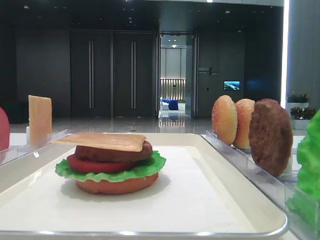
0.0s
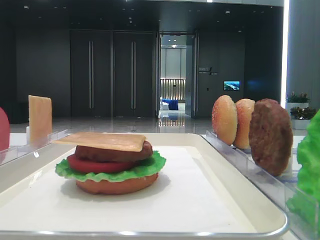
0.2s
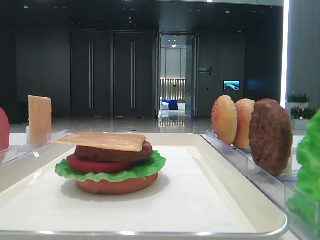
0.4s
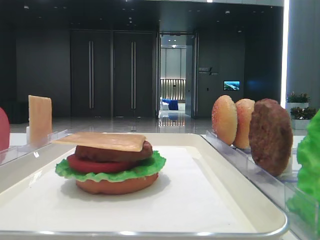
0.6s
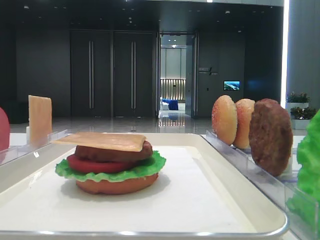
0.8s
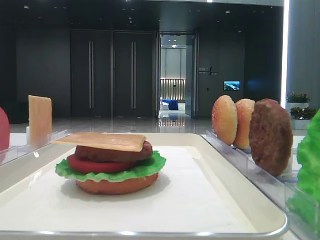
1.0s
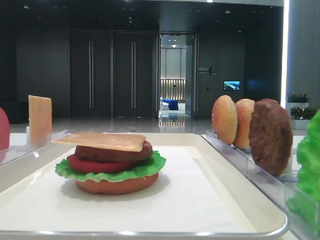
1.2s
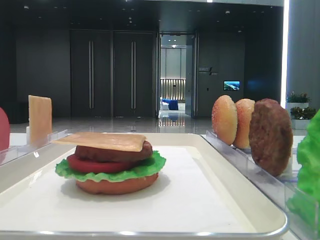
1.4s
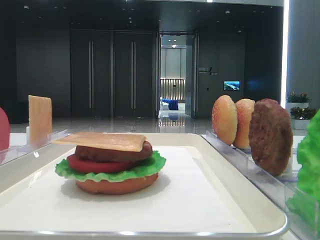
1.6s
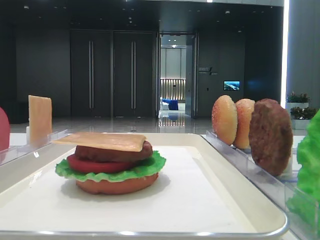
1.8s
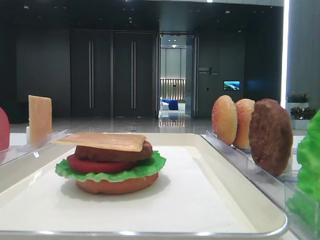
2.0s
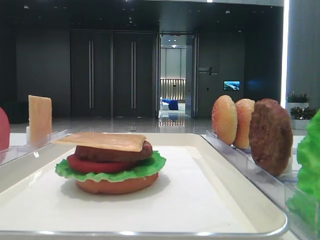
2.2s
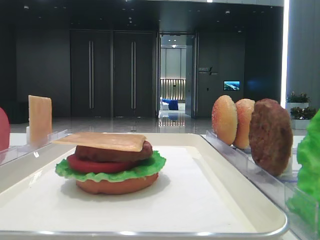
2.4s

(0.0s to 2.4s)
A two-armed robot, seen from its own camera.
0.0s - 2.4s: Both grippers stay put.

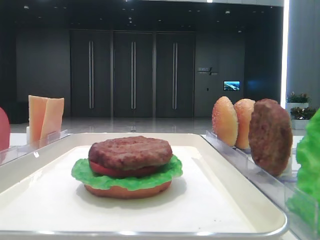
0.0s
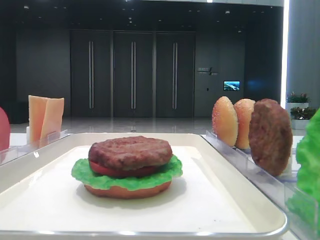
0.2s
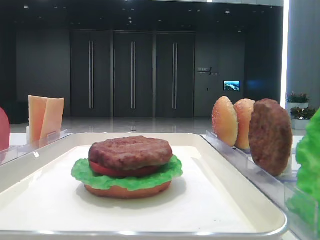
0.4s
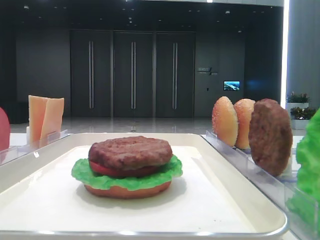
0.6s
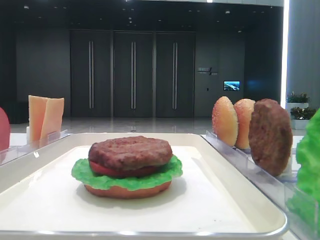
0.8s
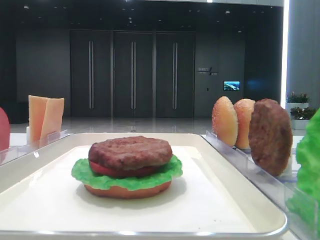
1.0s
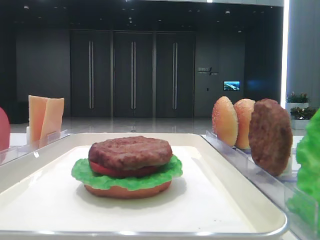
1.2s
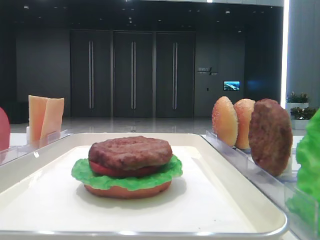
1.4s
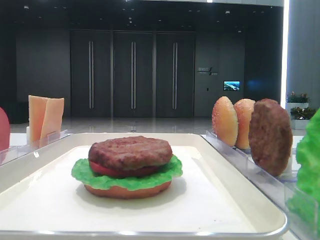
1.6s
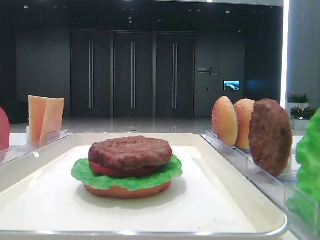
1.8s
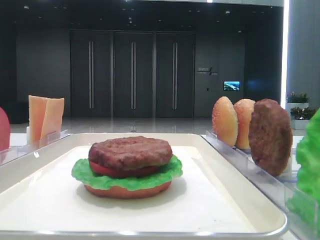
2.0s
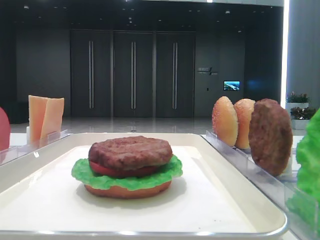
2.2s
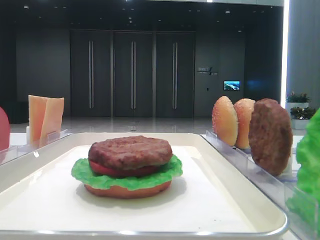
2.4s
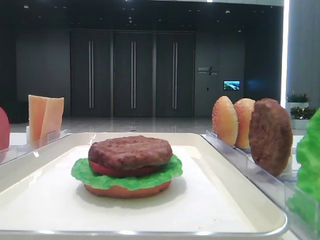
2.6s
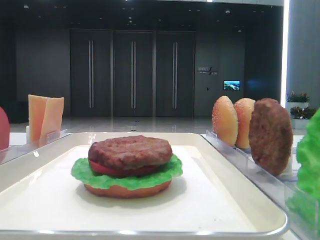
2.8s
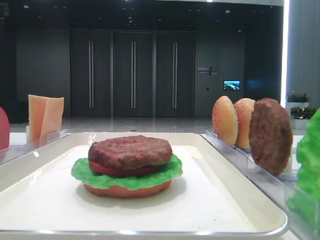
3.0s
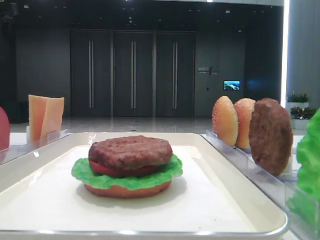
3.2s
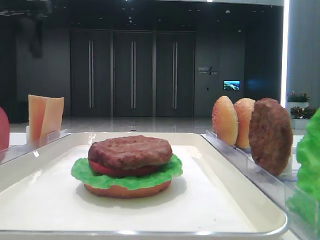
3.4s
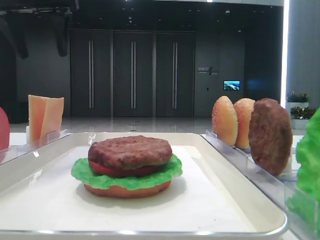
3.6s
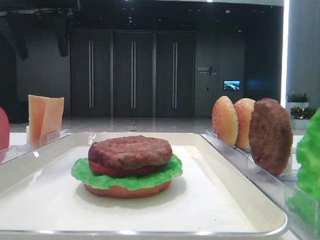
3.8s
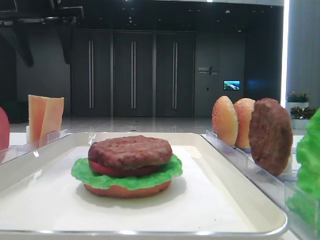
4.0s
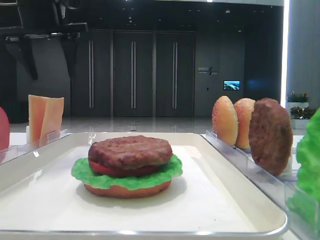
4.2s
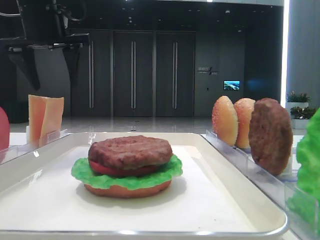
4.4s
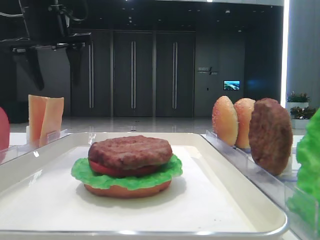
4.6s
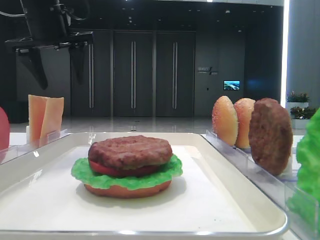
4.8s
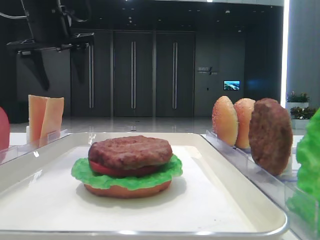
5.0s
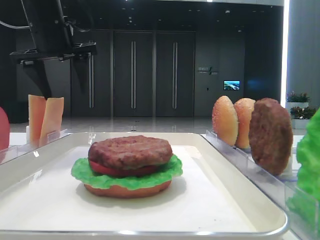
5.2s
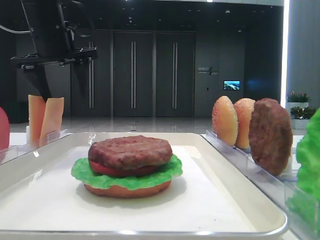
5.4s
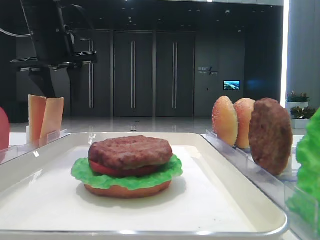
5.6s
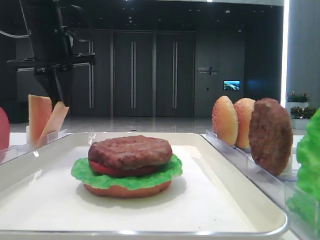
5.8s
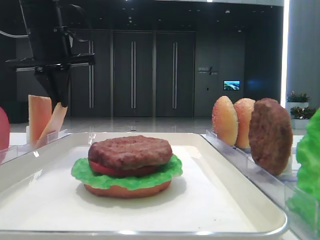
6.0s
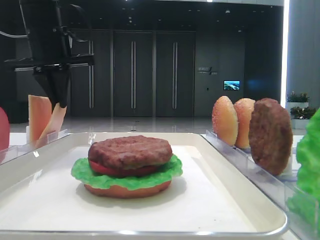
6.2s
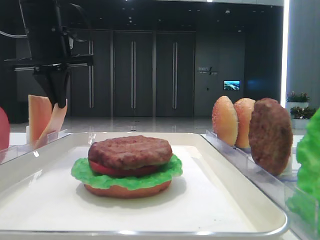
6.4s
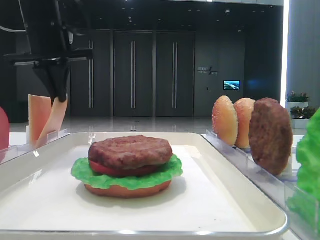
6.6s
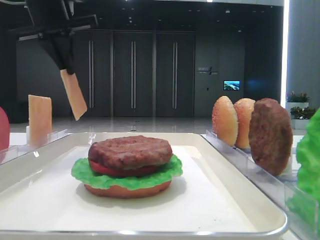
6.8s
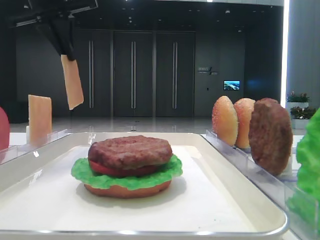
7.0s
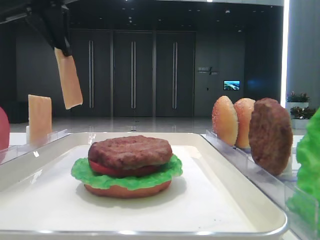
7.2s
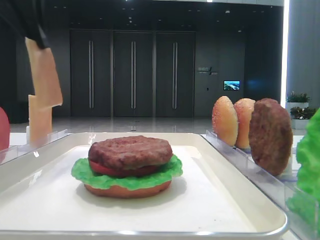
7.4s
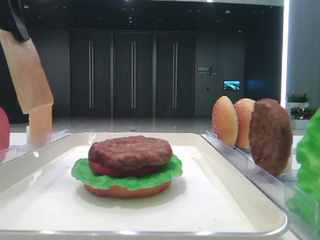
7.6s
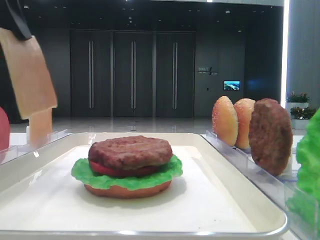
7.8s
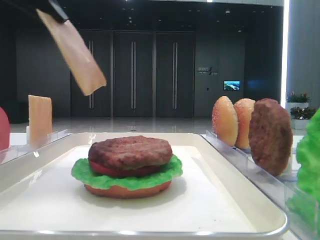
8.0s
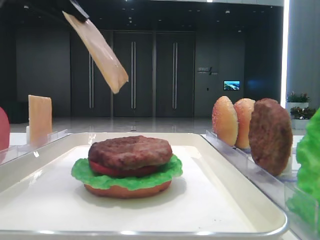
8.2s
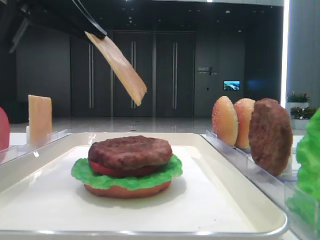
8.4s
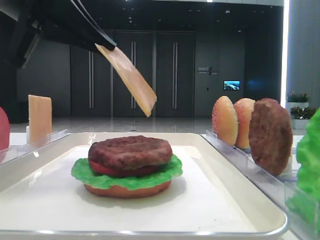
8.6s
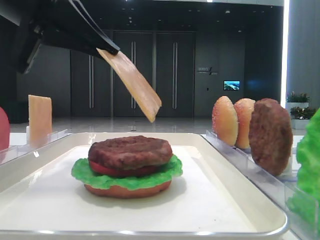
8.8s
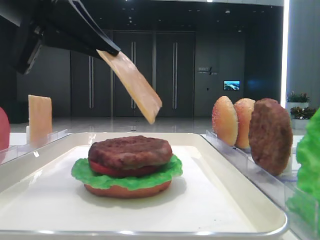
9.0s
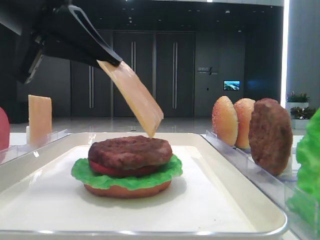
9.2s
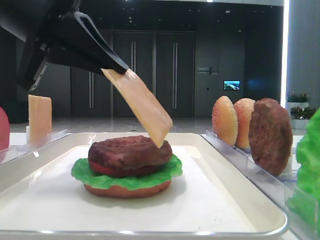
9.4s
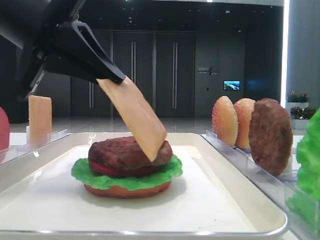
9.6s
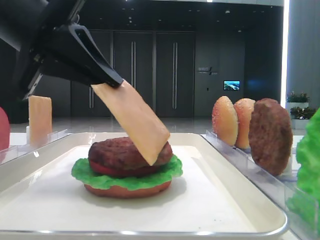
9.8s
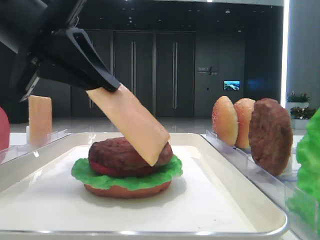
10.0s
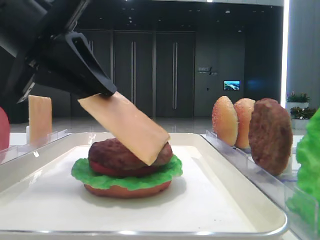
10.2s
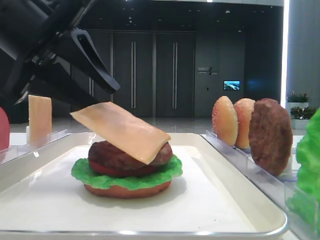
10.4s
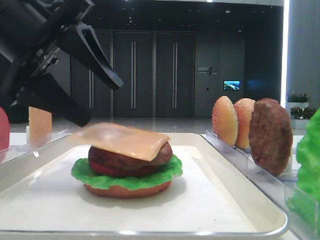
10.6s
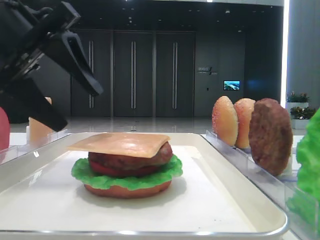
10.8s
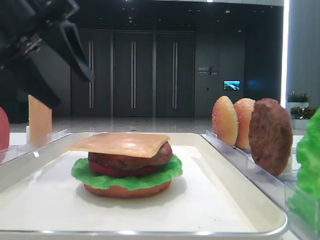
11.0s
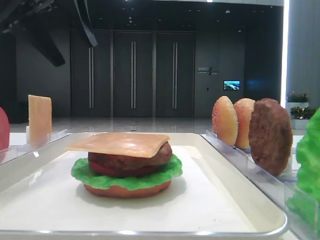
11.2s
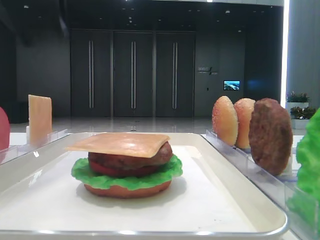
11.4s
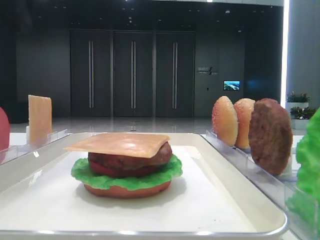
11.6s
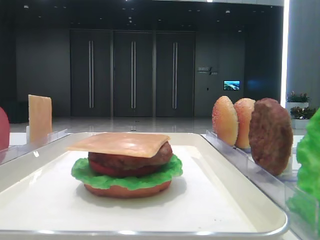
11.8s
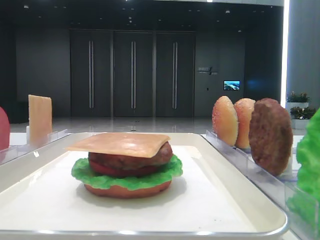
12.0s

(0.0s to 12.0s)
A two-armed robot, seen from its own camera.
Step, 0.0s - 5.8s: Pick up the cheese slice with the left hand.
Step, 6.0s - 10.4s: Place the cheese slice on the patty with the left hand.
1.6s - 3.0s: The left gripper moves forward, roughly 40 cm.
3.0s - 4.4s: The left gripper is displaced to the right by some 15 cm.
4.4s - 6.0s: The left gripper closes.
6.0s - 7.6s: The left gripper goes approximately 20 cm backward.
7.6s - 9.0s: The left gripper is displaced downward and to the right by approximately 10 cm.
9.0s - 10.4s: The left gripper opens.
10.4s - 12.0s: The left gripper moves to the left, upward and forward, approximately 25 cm.

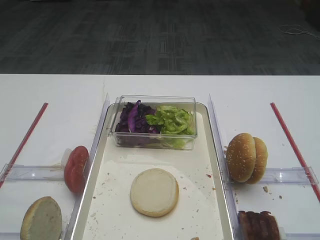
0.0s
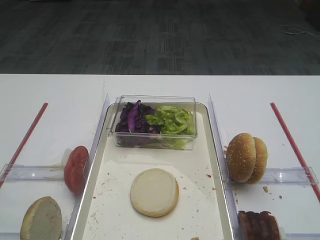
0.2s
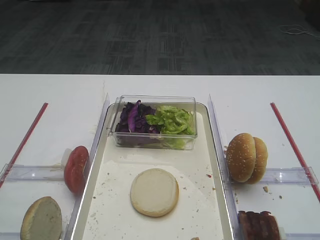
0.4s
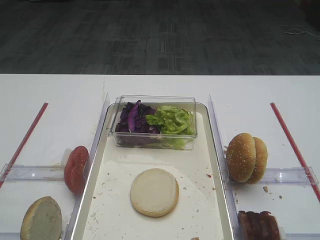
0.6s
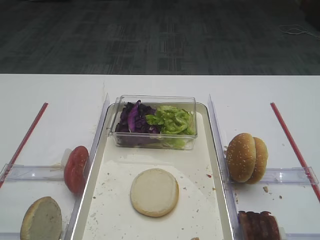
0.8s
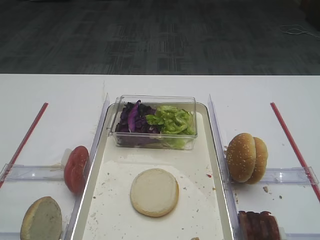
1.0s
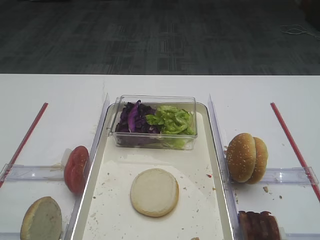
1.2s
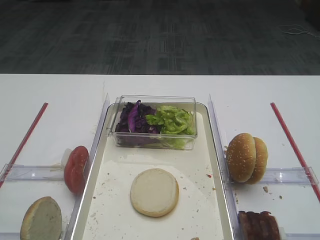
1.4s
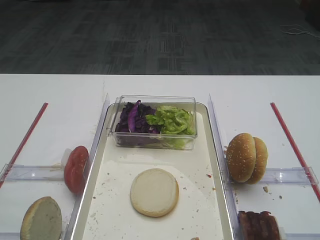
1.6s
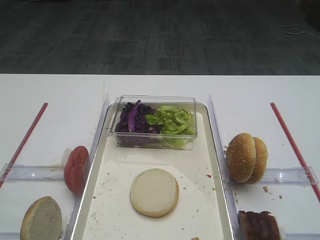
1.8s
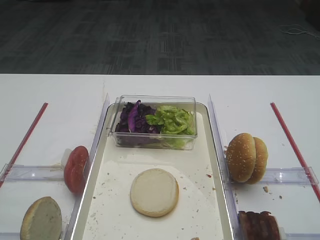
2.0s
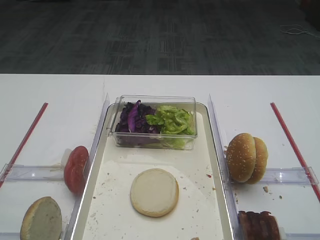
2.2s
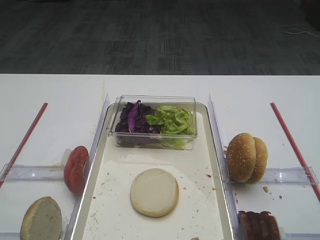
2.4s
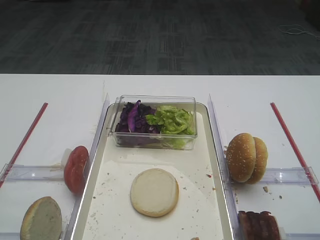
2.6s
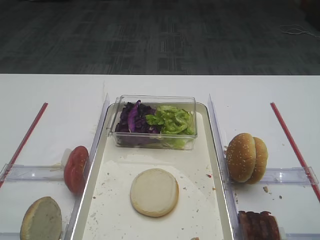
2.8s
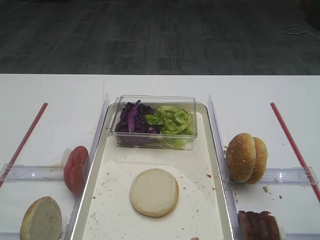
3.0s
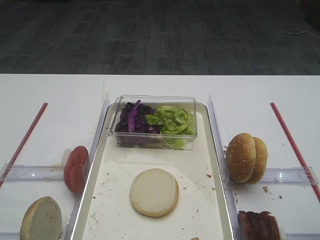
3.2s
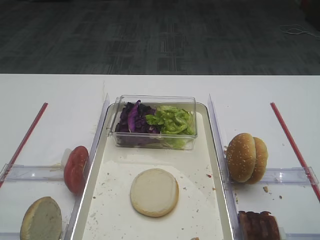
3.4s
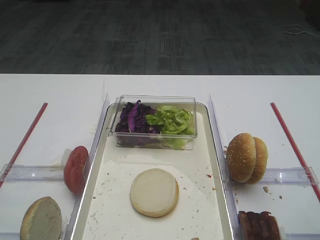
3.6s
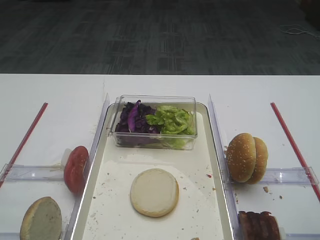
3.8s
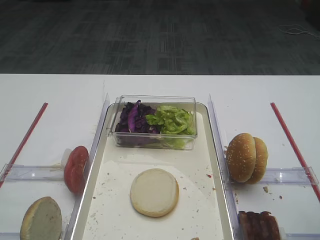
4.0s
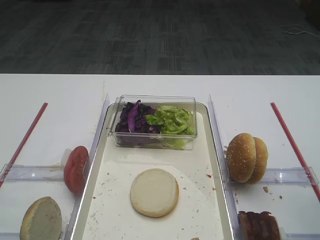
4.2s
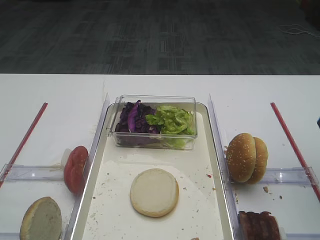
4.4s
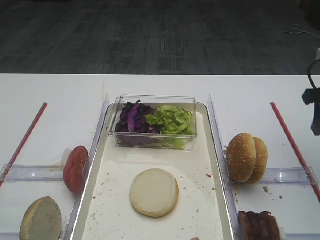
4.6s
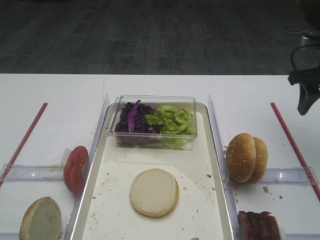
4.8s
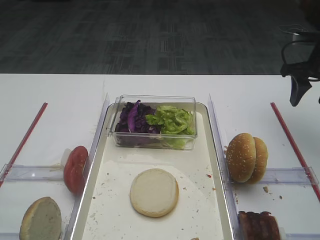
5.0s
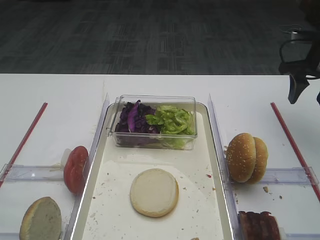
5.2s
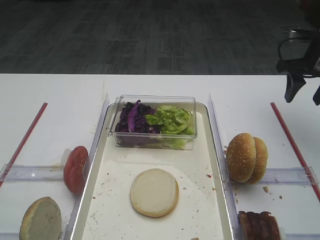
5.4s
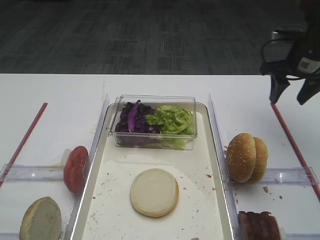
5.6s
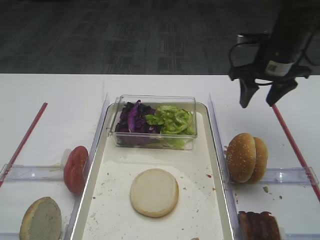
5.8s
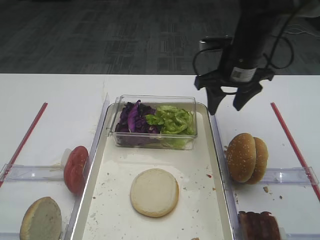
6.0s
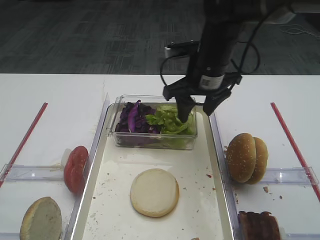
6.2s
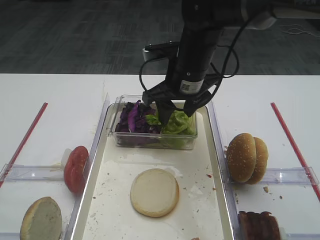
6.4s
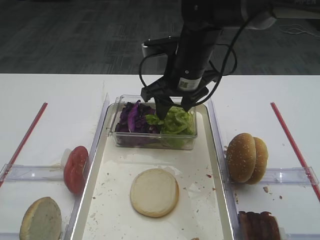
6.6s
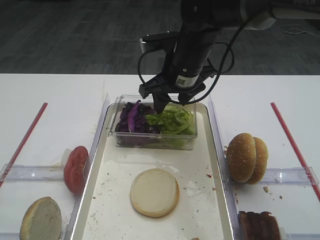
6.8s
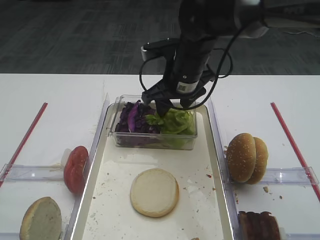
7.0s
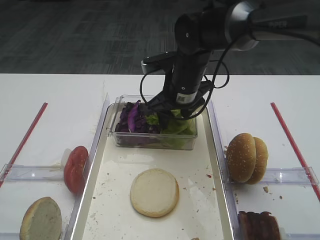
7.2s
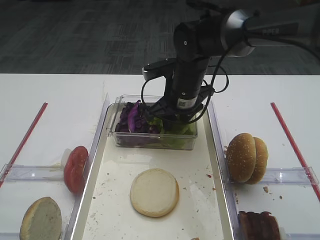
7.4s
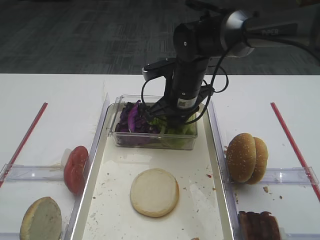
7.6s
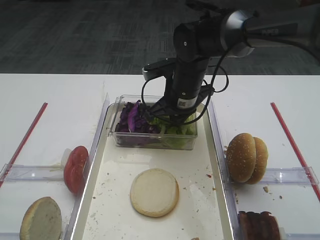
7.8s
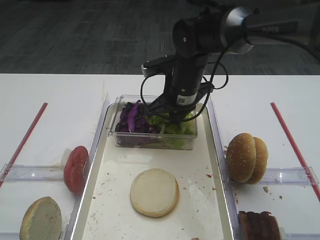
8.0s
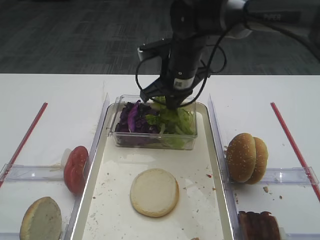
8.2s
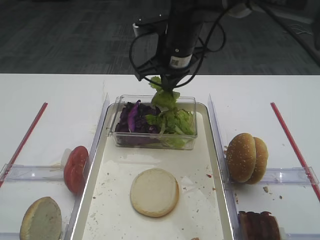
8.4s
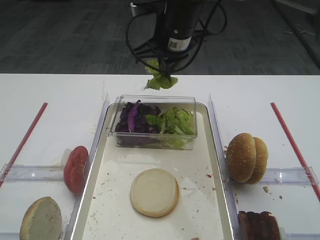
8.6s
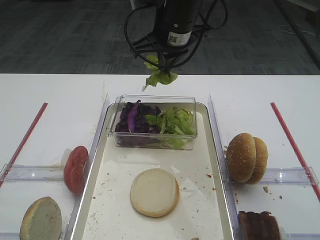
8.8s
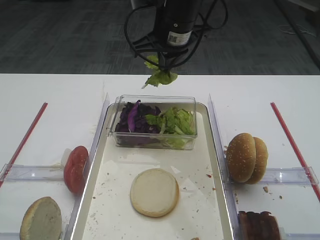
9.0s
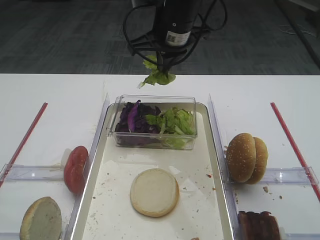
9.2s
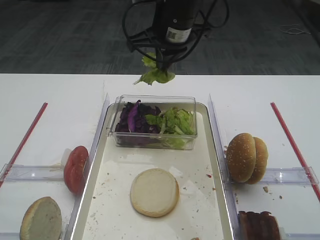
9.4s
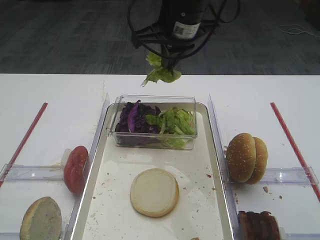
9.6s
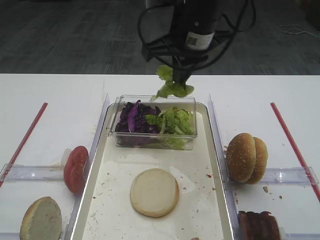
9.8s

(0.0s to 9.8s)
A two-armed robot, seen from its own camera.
Step, 0.0s - 8.6s: Pick up the lettuce leaf with the right gripper.
4.2s - 5.6s: The right gripper shifts some 25 cm forward.
5.6s - 7.0s: The right gripper goes about 25 cm to the left.
7.0s - 8.4s: The right gripper moves about 5 cm, and closes.
8.4s - 9.8s: The right gripper moves backward and upward, approximately 10 cm.
